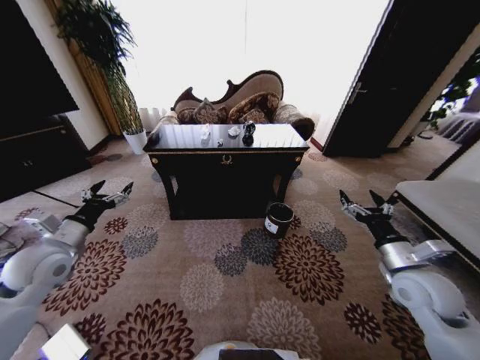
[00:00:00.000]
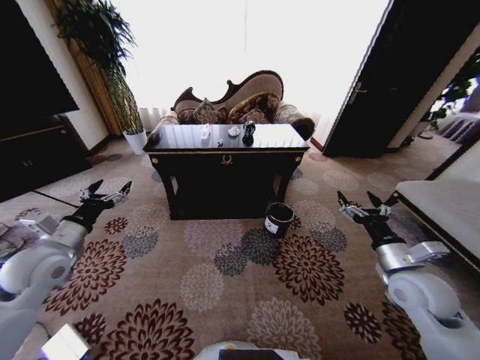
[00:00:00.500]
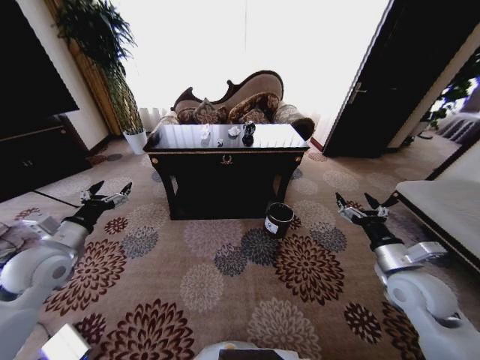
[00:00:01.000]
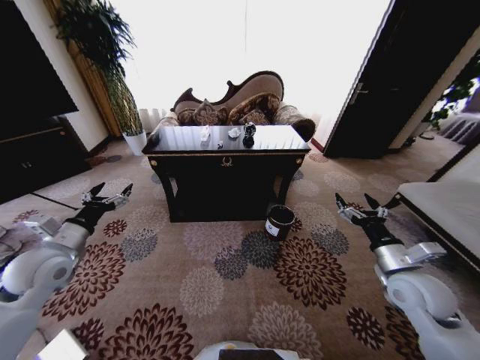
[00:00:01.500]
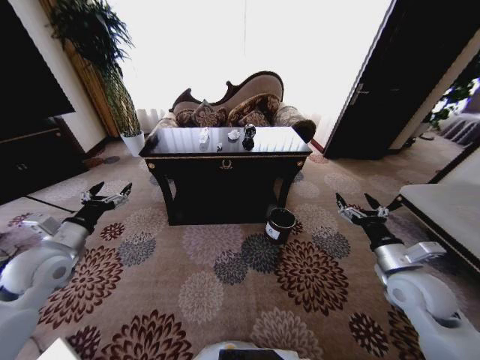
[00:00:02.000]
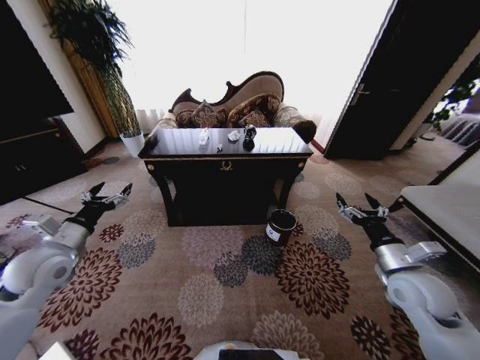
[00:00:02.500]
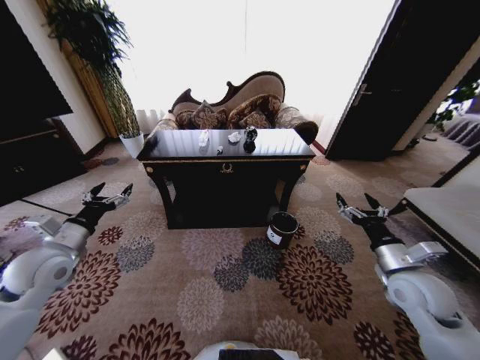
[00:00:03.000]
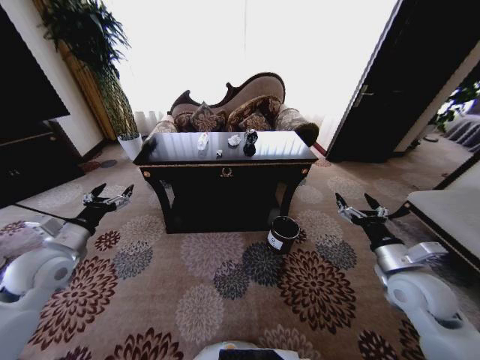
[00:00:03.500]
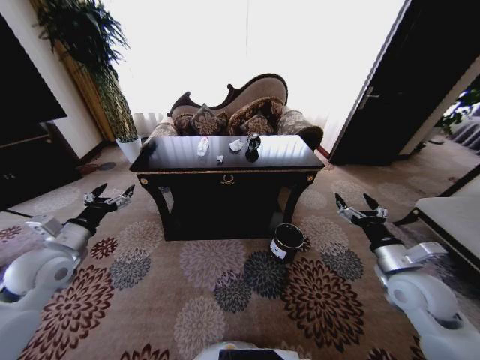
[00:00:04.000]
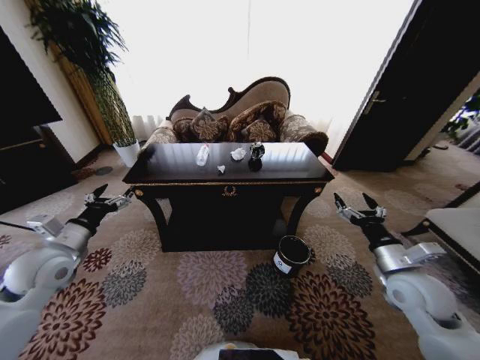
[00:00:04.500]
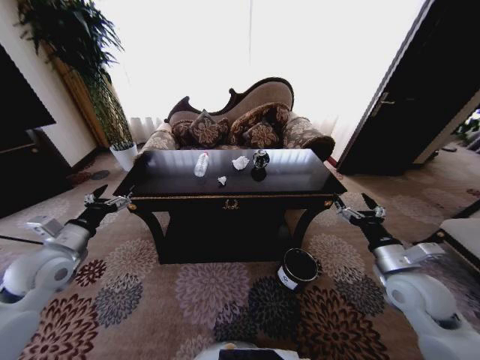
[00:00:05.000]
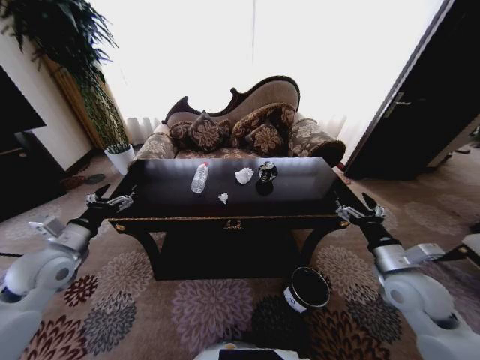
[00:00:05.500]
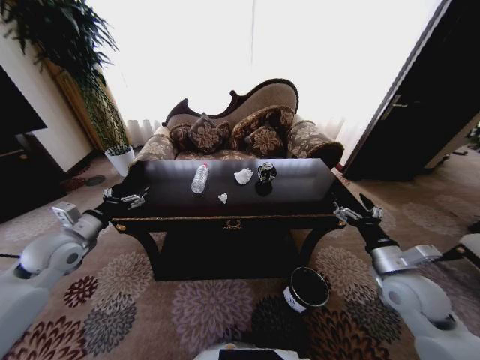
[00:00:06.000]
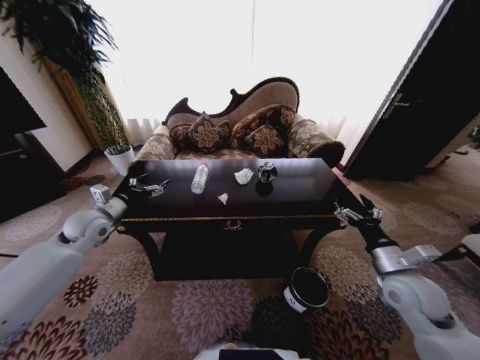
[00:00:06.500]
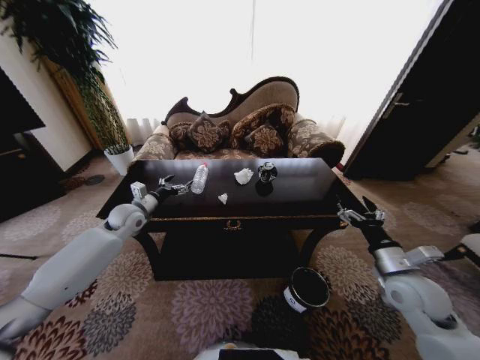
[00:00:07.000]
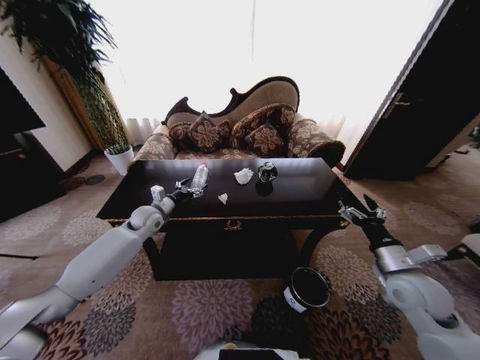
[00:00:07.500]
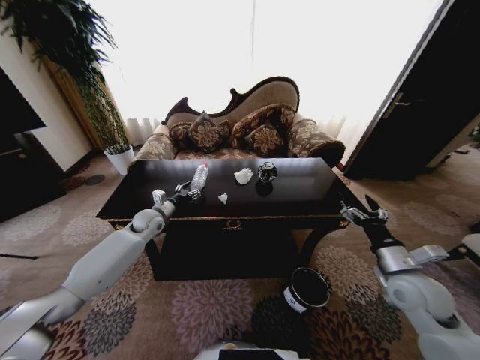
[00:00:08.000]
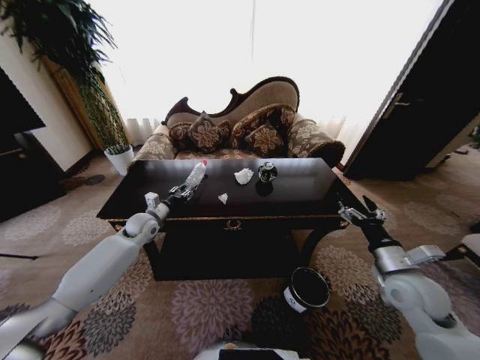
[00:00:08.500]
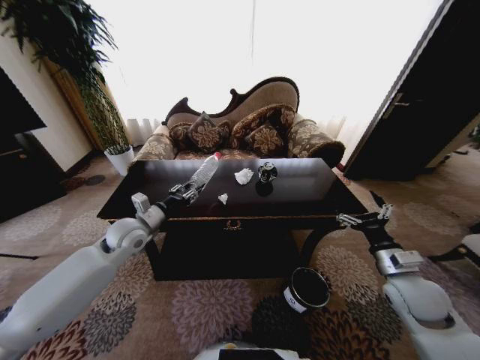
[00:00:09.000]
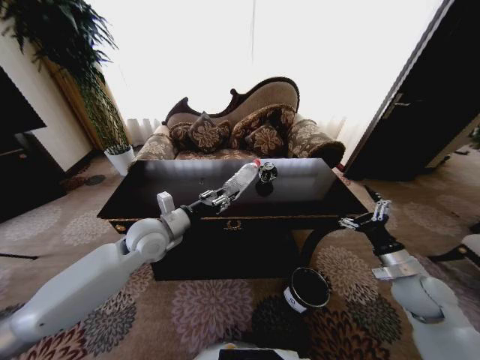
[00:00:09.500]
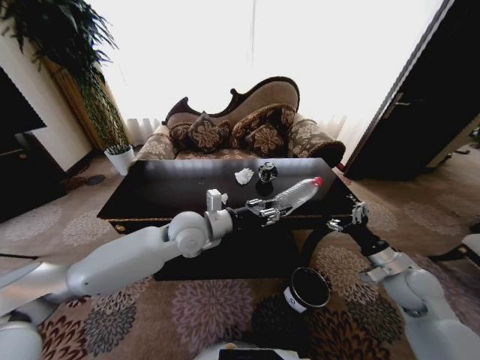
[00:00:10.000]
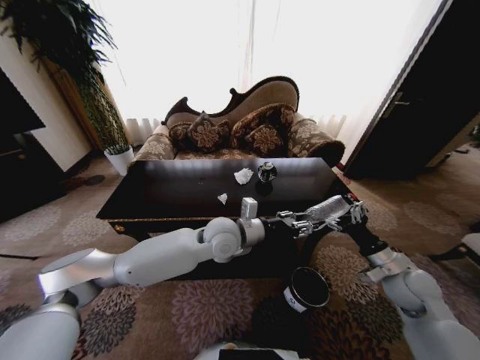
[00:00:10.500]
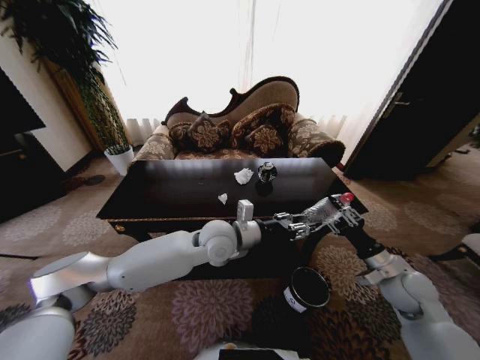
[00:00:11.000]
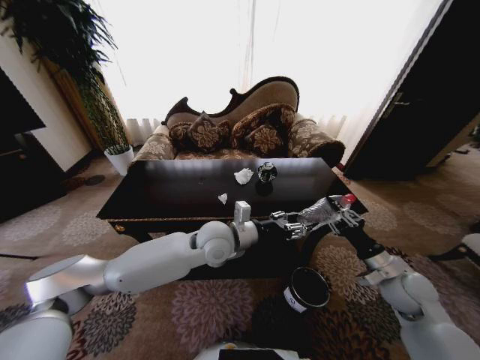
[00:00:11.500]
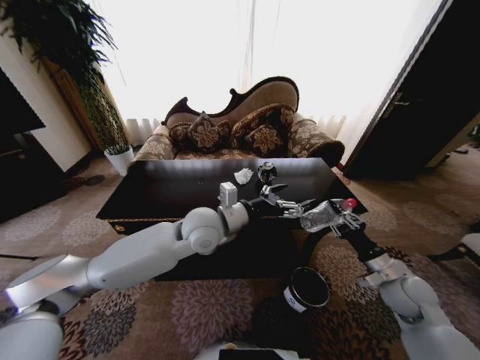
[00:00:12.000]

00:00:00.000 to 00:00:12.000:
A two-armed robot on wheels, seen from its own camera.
Task of the whole recording: Move to the front of the table and place the trash on the table into the trash bin.
00:00:06.000 to 00:00:08.000: The left gripper travels forward, to the right and downward by some 25 cm.
00:00:08.000 to 00:00:10.000: The left gripper is displaced to the right, backward and upward by approximately 25 cm, and closes its fingers. Meanwhile the right gripper moves approximately 5 cm.
00:00:10.000 to 00:00:12.000: The left gripper opens its fingers; the right gripper closes its fingers.

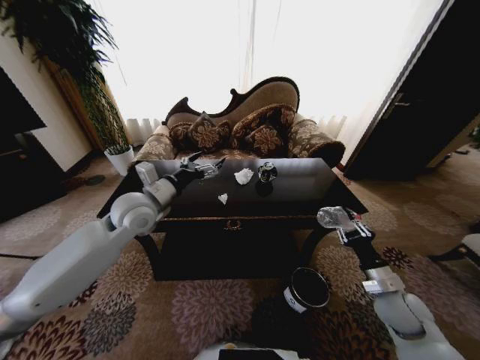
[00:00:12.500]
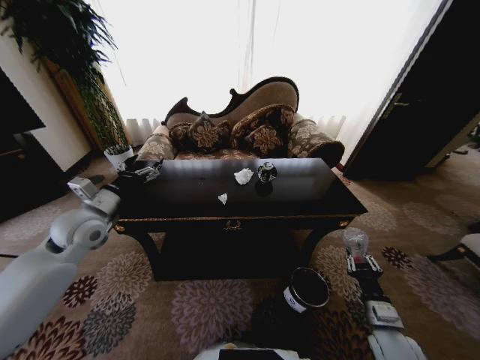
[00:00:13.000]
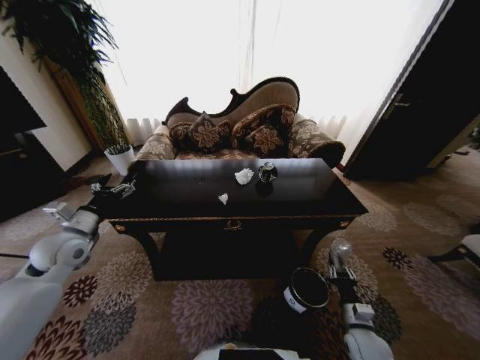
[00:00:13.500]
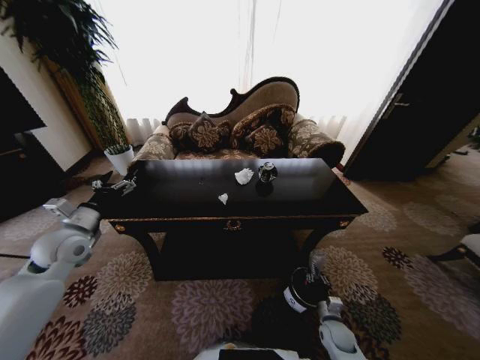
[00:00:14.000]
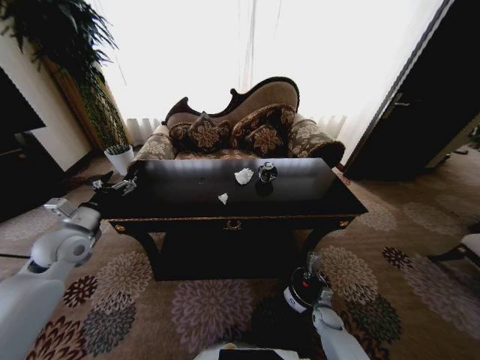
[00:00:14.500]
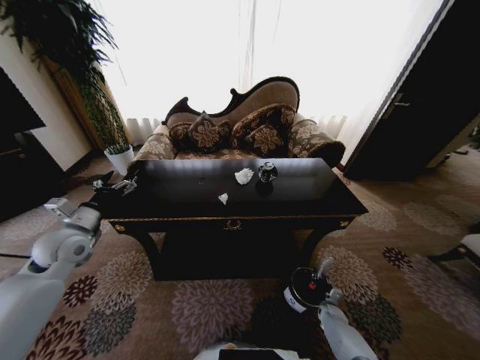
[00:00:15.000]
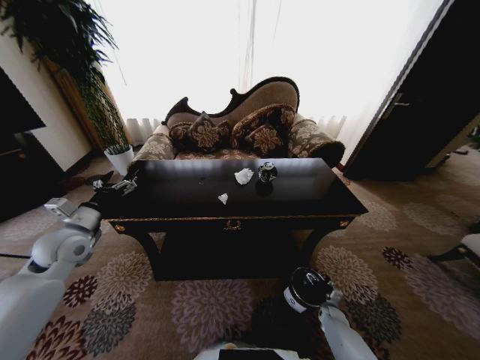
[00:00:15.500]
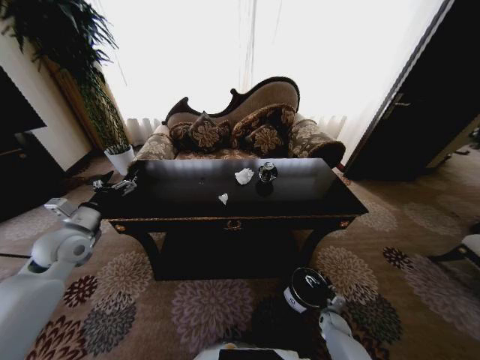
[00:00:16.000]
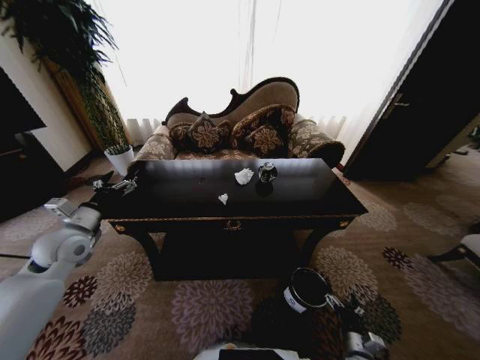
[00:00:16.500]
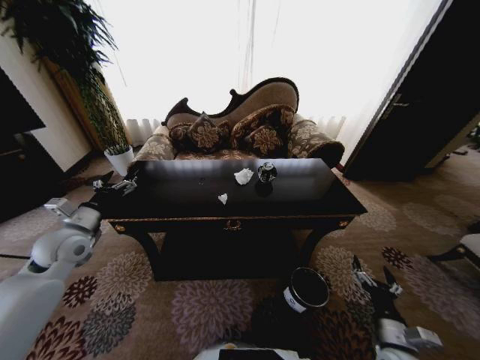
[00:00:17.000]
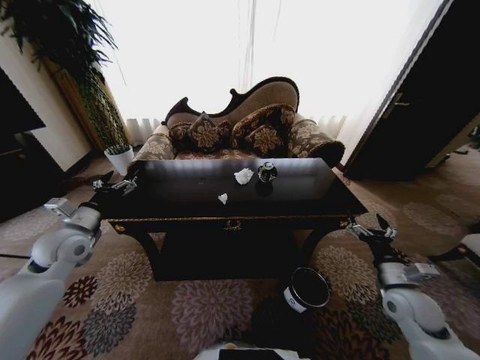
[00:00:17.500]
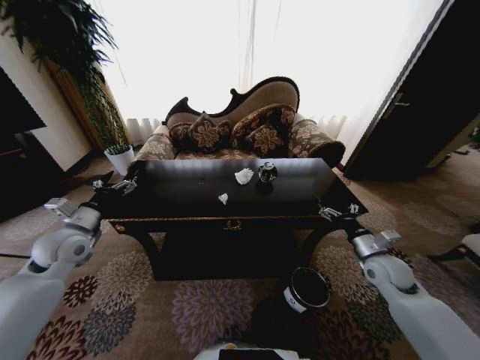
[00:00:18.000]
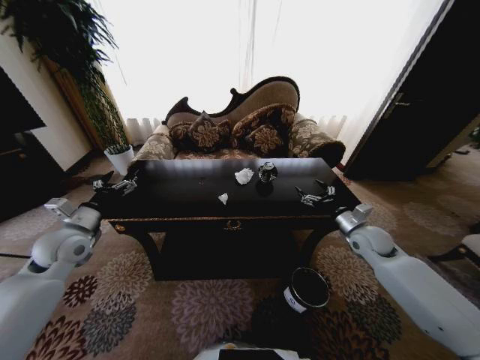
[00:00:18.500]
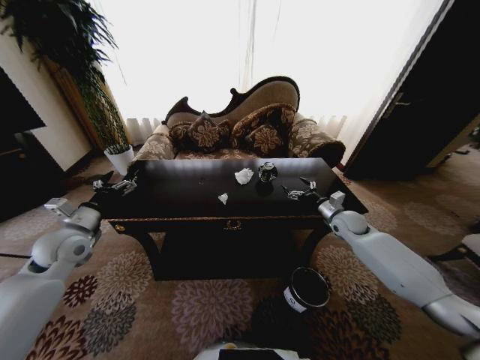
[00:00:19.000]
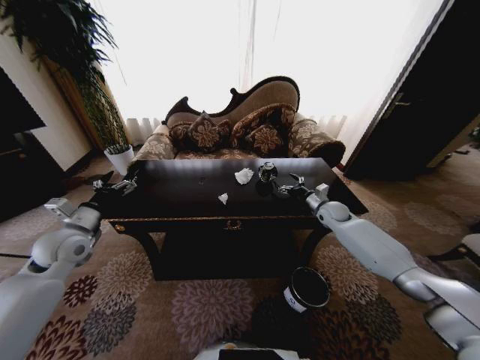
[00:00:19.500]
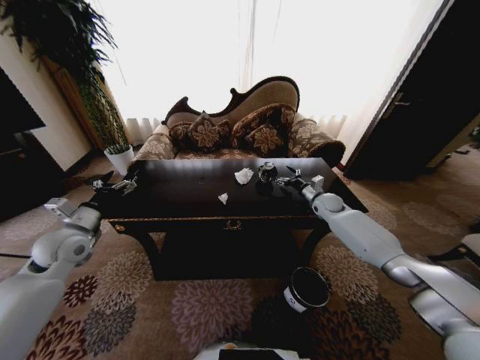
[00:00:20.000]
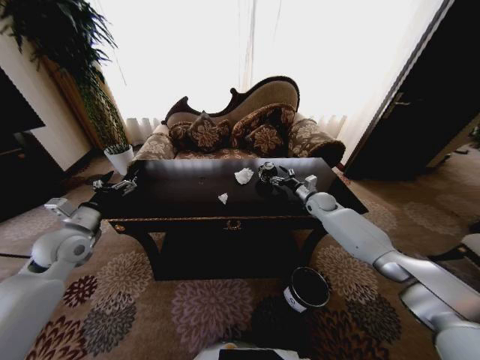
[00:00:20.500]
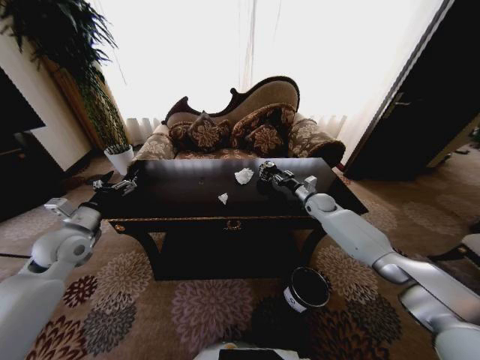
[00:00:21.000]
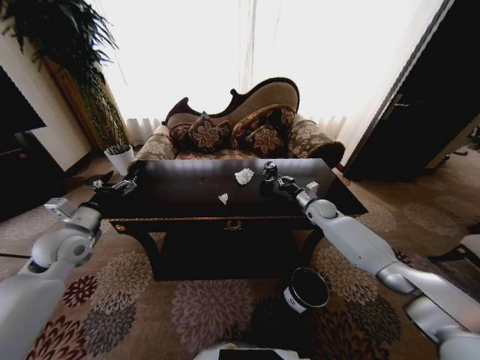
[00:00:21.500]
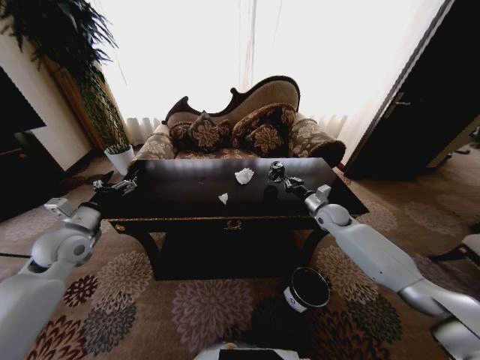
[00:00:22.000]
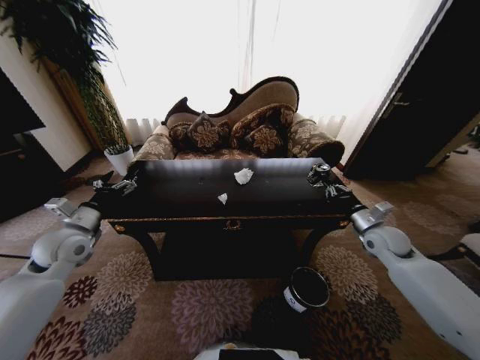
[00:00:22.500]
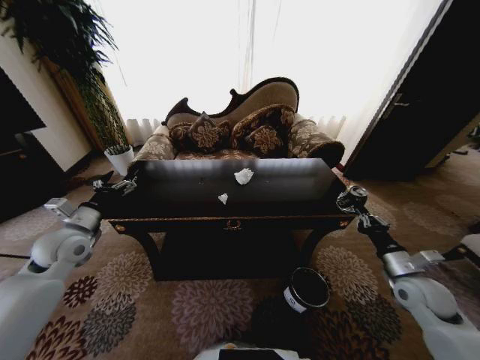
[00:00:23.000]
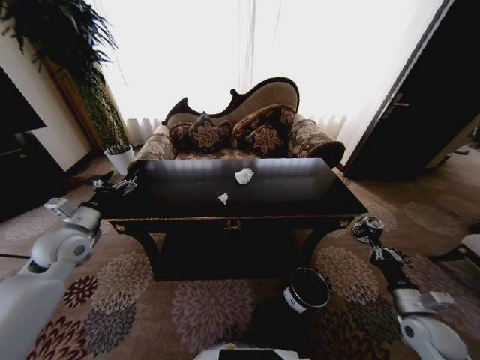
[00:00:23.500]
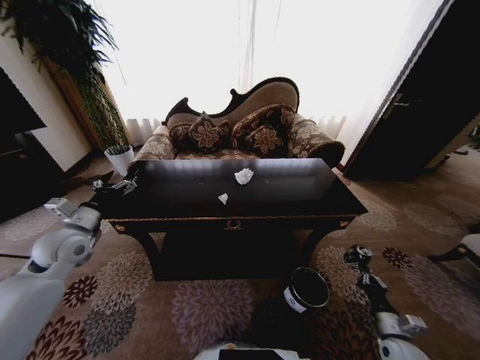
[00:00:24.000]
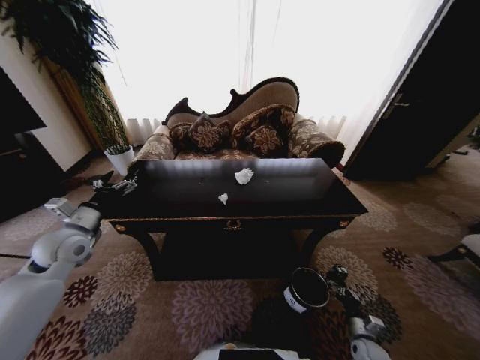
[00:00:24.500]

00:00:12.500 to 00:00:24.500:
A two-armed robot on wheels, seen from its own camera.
Task of the whole recording: Move to the front of the table and place the trash on the table into the trash bin.
00:00:12.500 to 00:00:14.500: The right gripper is displaced downward by approximately 30 cm; the left gripper is displaced to the left and downward by some 20 cm.
00:00:14.500 to 00:00:16.500: The right gripper travels backward and upward by some 15 cm, and opens its fingers.
00:00:16.500 to 00:00:18.500: The right gripper heads upward and forward, covering approximately 40 cm.
00:00:18.500 to 00:00:20.500: The right gripper moves forward, approximately 15 cm.
00:00:20.500 to 00:00:22.500: The right gripper is displaced backward and to the right by some 20 cm, and closes.
00:00:22.500 to 00:00:24.500: The right gripper is displaced downward and backward by roughly 40 cm.

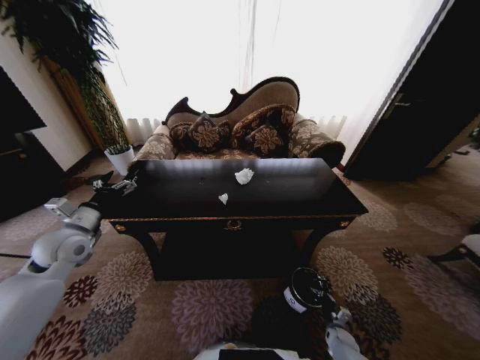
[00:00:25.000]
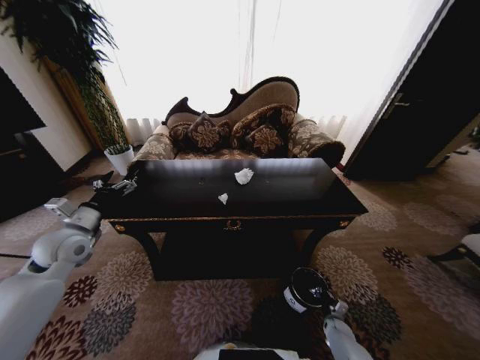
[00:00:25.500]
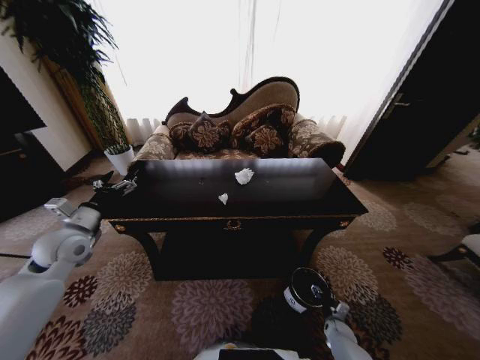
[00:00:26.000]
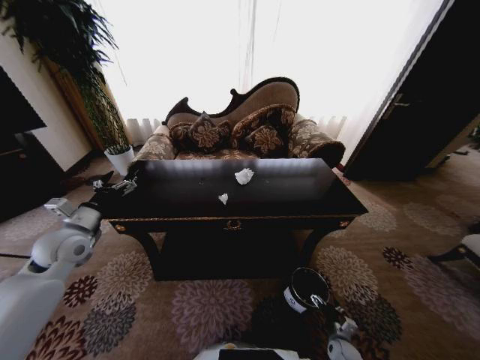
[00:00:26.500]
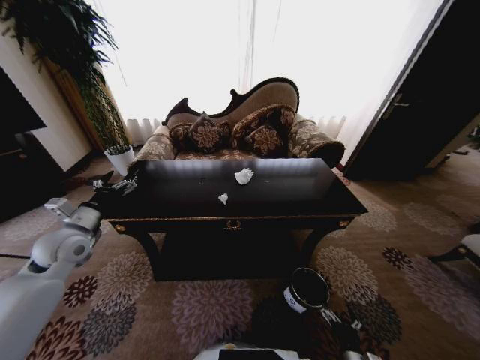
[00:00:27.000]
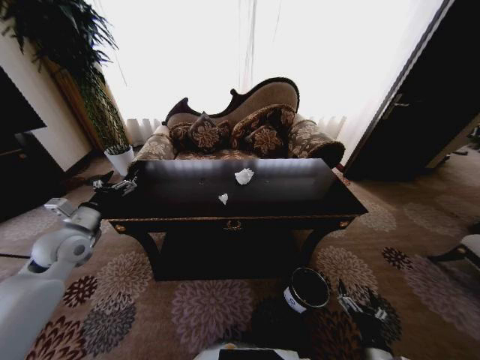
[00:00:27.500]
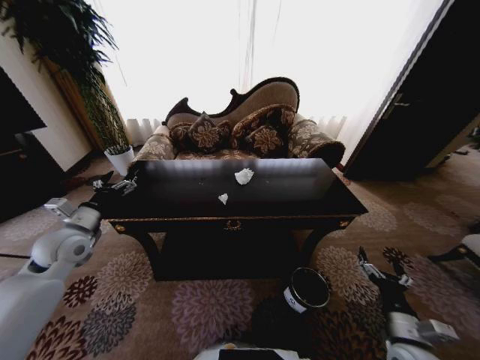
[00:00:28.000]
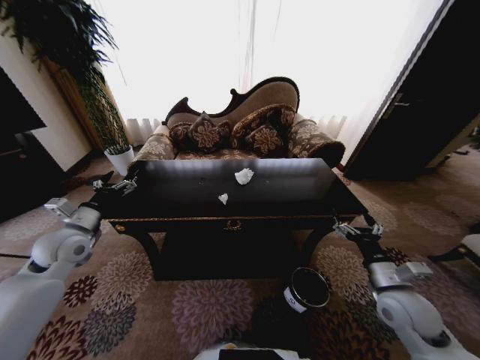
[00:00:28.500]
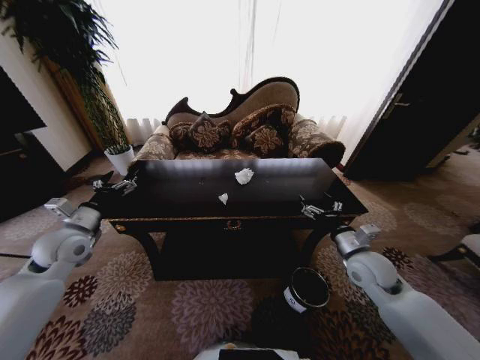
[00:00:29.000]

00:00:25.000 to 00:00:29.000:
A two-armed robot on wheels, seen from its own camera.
Task of the whole recording: Move to the front of the table and place the trash on the table into the trash bin.
00:00:25.000 to 00:00:27.000: The right gripper moves backward, upward and to the left, some 15 cm, and opens its fingers.
00:00:27.000 to 00:00:29.000: The right gripper travels upward and forward by roughly 40 cm.
